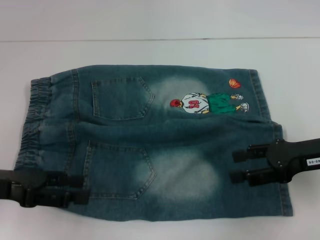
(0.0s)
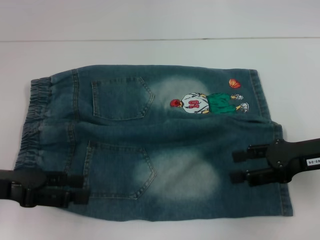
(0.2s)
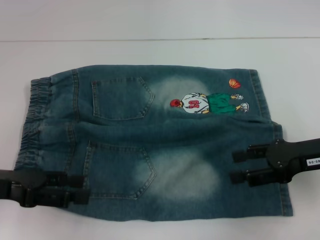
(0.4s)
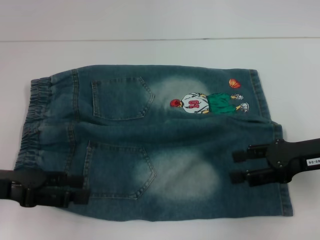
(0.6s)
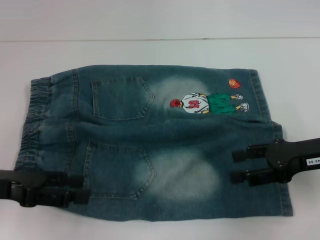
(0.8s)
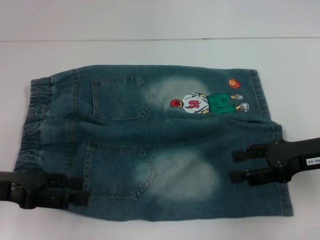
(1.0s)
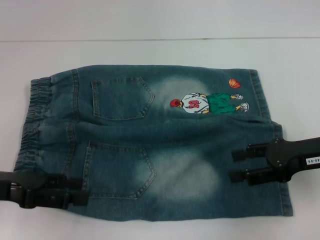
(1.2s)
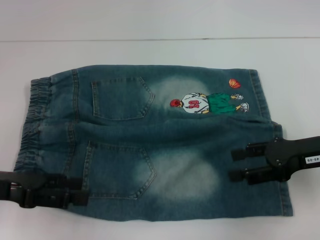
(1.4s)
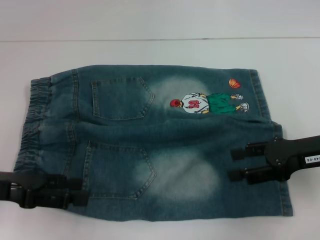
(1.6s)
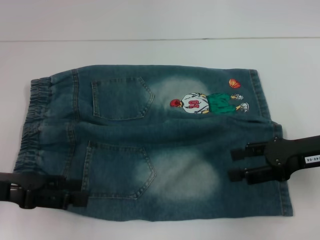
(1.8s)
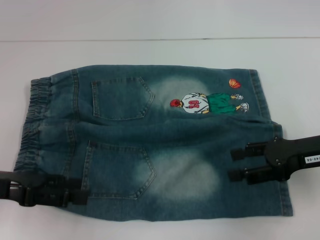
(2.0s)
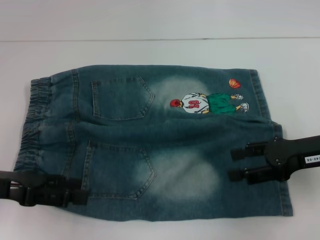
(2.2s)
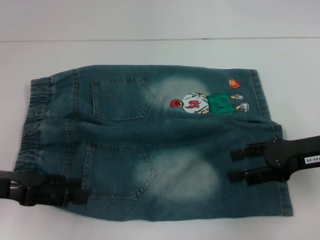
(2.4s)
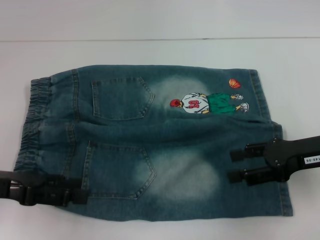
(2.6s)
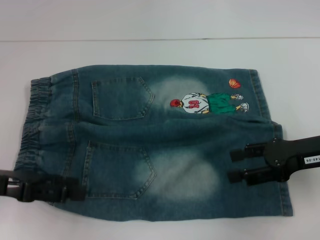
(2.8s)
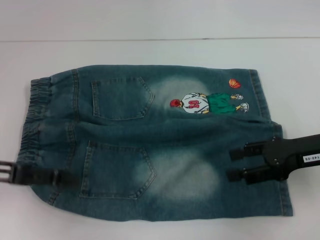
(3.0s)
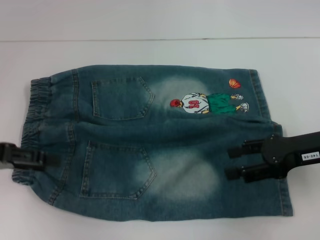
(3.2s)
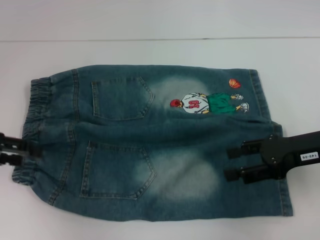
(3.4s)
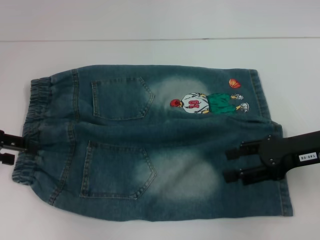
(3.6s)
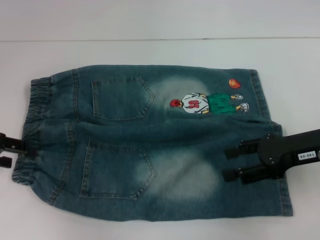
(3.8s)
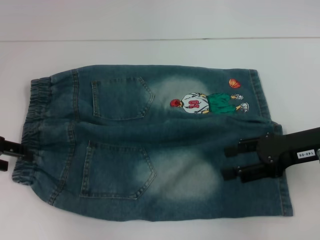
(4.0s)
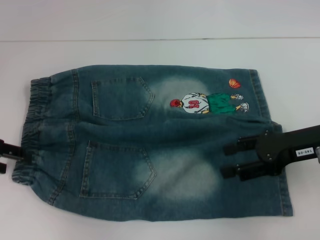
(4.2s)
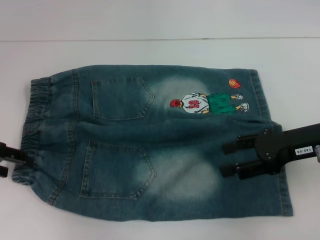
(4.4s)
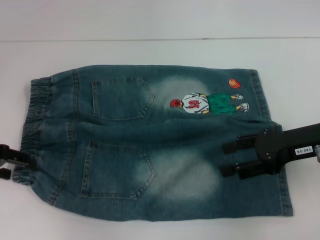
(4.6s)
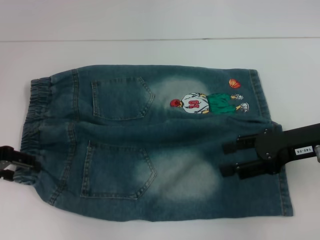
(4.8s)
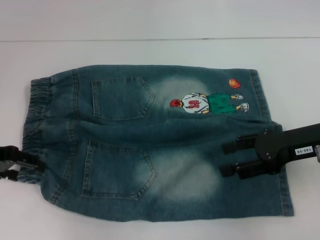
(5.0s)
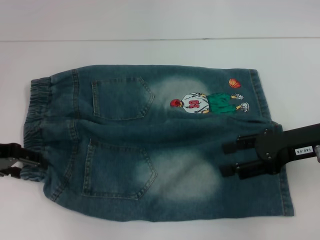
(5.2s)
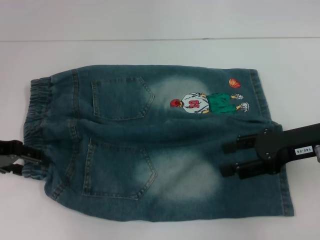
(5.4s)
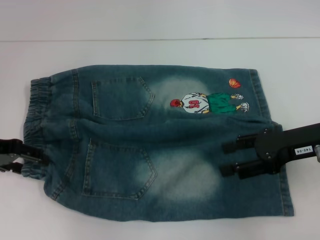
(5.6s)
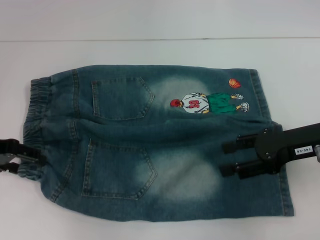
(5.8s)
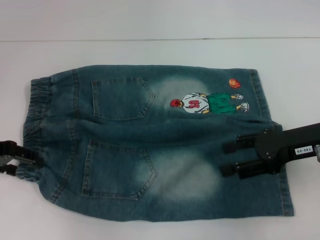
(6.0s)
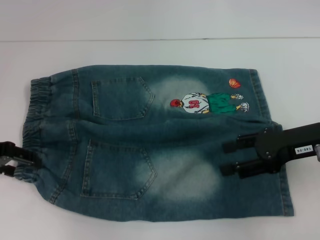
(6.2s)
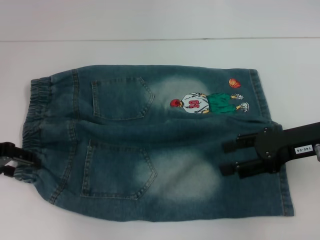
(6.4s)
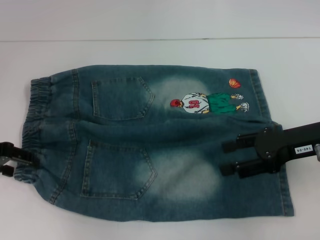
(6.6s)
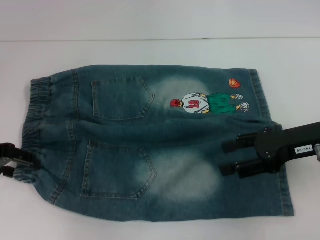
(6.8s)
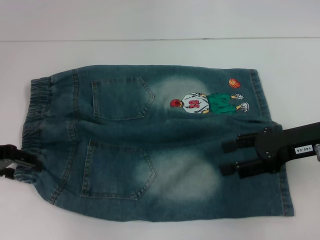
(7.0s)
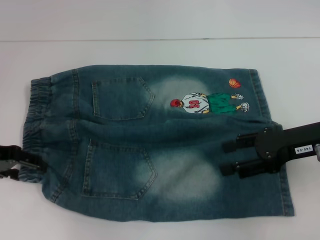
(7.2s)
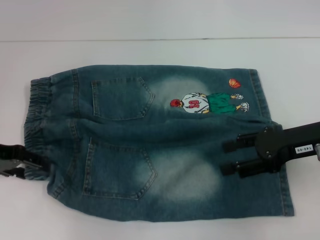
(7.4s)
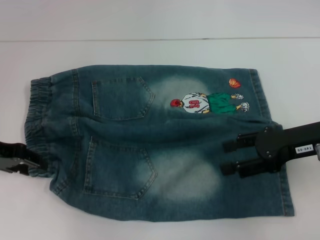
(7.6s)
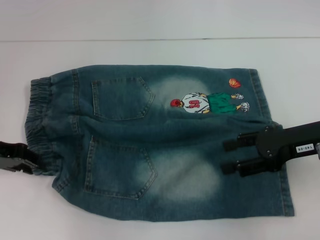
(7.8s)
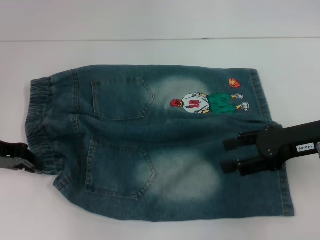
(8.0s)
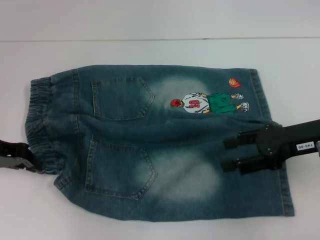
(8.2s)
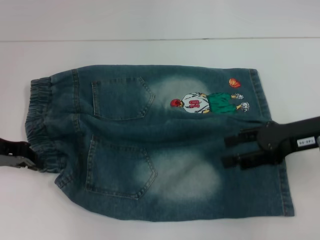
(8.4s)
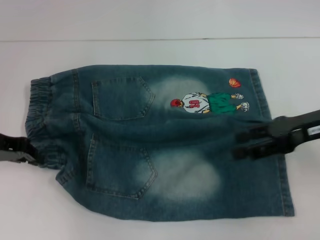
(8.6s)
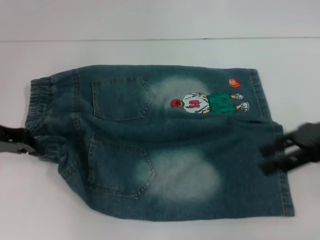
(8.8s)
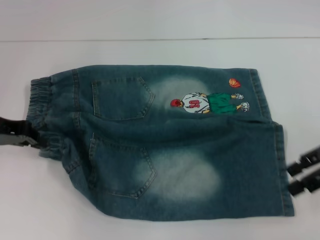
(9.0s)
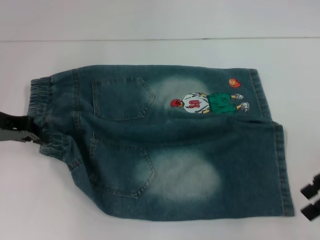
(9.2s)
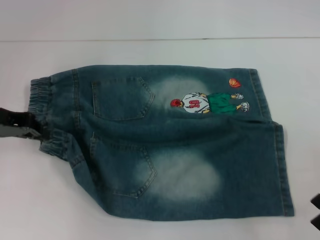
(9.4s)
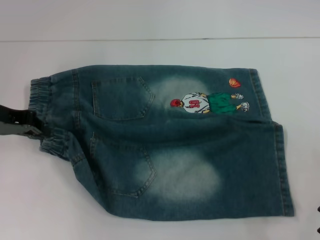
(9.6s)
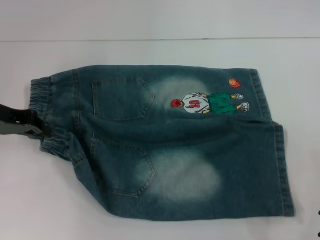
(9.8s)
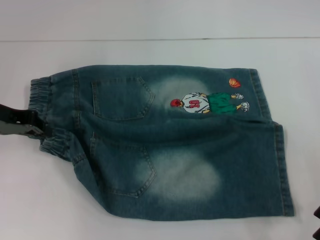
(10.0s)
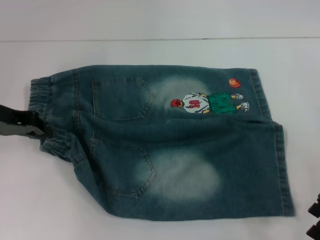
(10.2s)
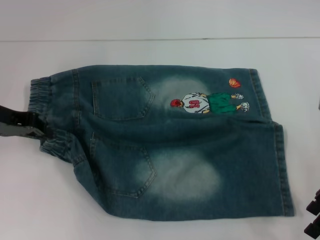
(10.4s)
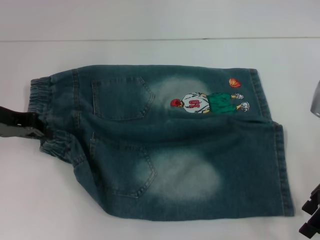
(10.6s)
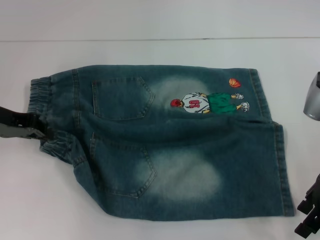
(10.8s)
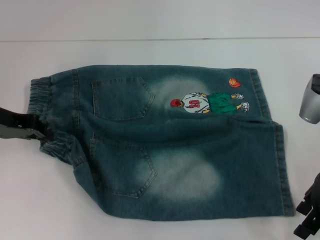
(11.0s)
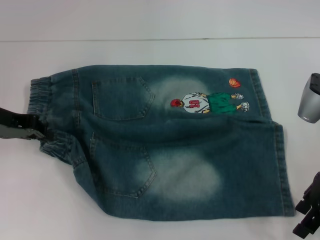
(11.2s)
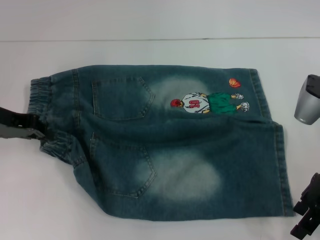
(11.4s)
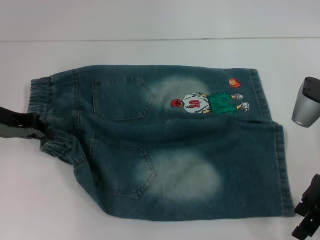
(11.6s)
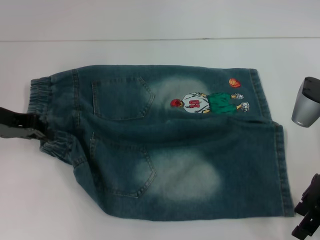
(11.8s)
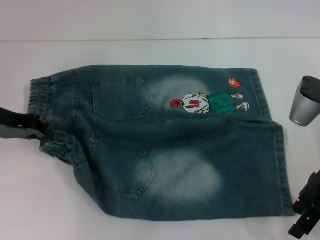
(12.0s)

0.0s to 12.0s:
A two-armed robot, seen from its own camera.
Step, 0.0s to 5.8s: Hold the lower left waistband with your left hand.
0.0s to 1.6s: Neither gripper changes place.
1.6s to 3.0s: The grippers make only small movements.
3.0s to 4.4s: The left gripper is displaced forward by some 5 cm.
4.4s to 6.0s: The grippers move only a little.
6.0s to 7.6s: Both grippers stay put.
7.6s to 9.0s: The left gripper closes up. Meanwhile the right gripper travels to the right by some 5 cm.
10.4s to 12.0s: The grippers make only small movements.

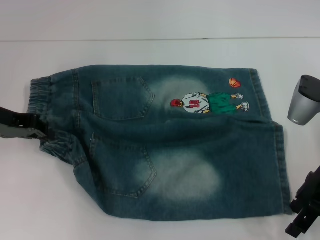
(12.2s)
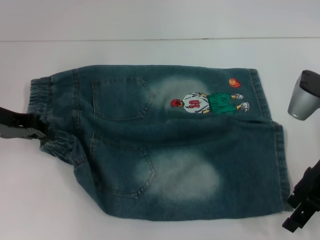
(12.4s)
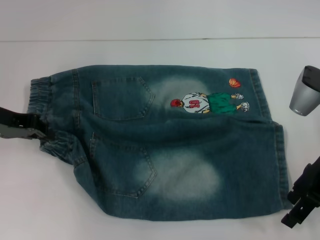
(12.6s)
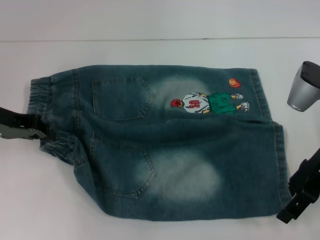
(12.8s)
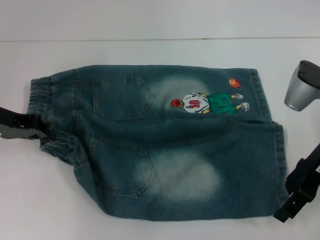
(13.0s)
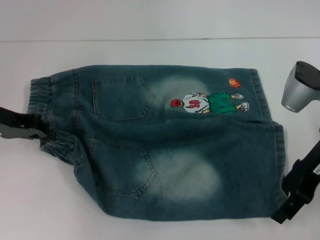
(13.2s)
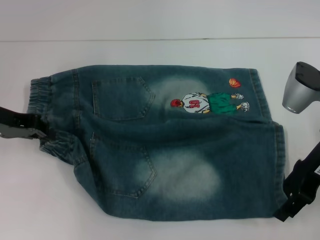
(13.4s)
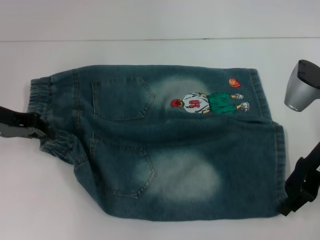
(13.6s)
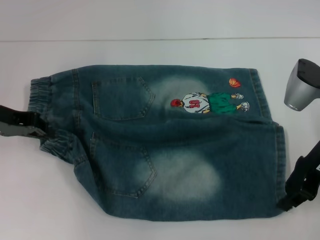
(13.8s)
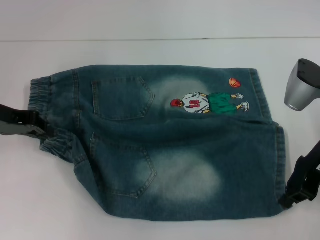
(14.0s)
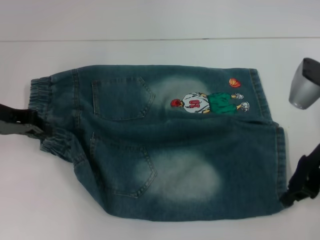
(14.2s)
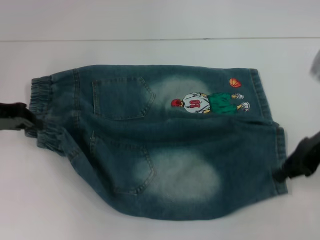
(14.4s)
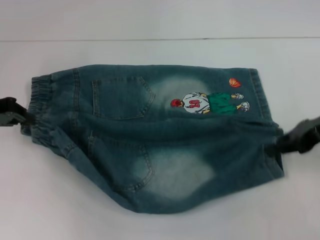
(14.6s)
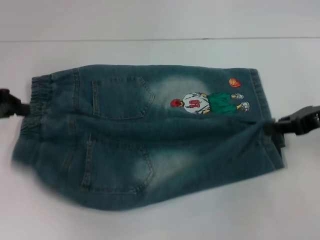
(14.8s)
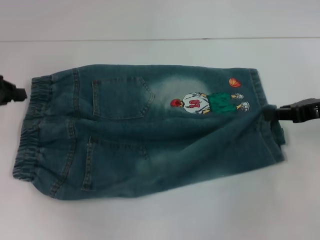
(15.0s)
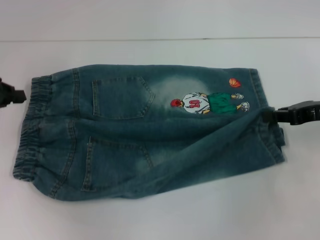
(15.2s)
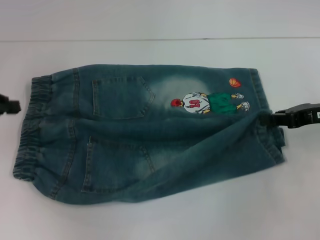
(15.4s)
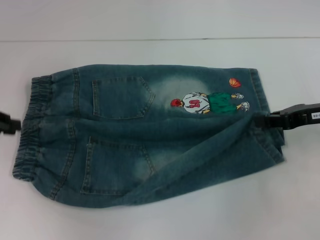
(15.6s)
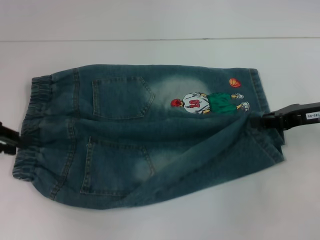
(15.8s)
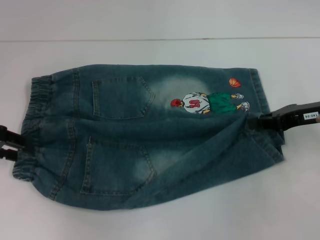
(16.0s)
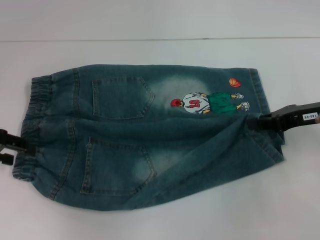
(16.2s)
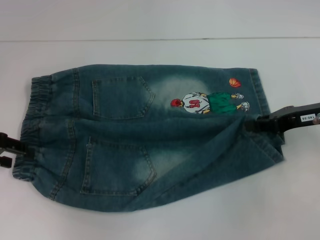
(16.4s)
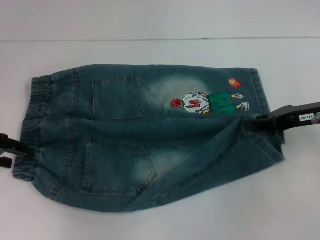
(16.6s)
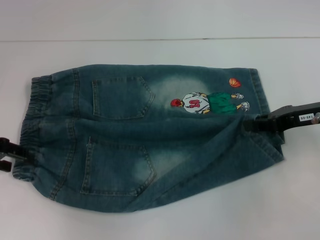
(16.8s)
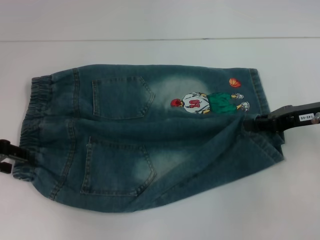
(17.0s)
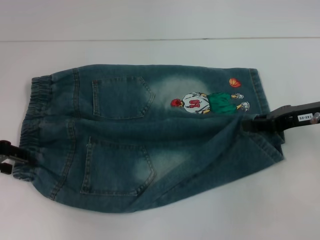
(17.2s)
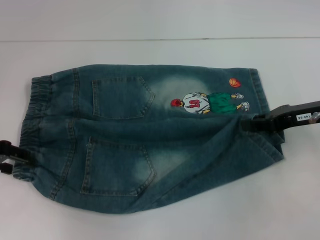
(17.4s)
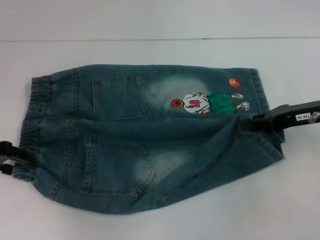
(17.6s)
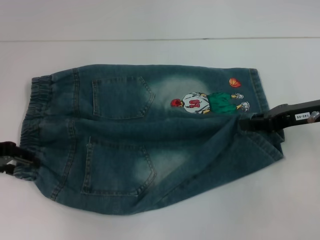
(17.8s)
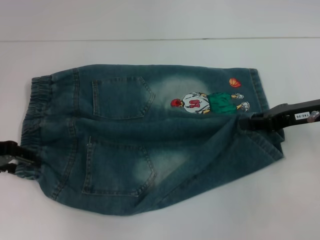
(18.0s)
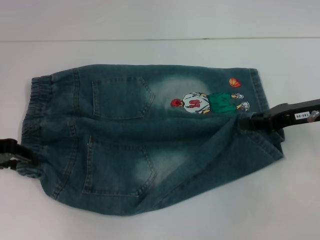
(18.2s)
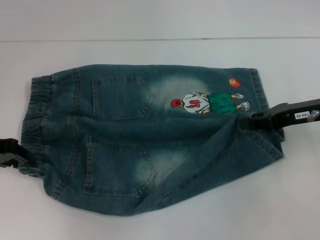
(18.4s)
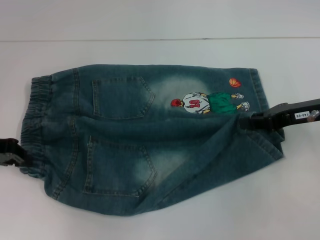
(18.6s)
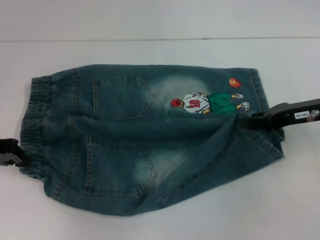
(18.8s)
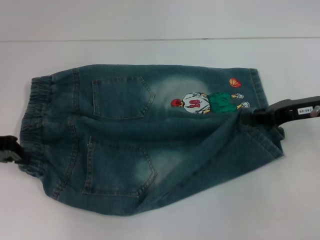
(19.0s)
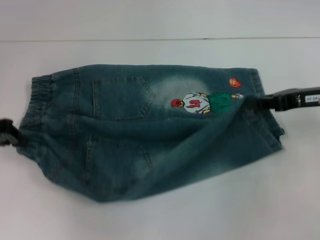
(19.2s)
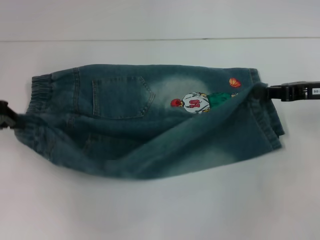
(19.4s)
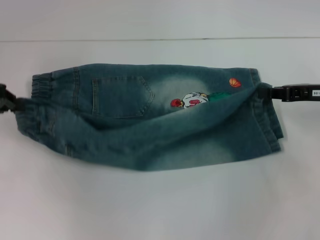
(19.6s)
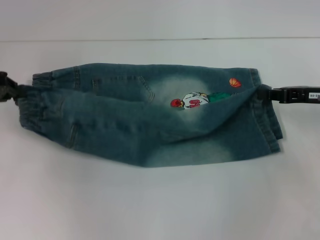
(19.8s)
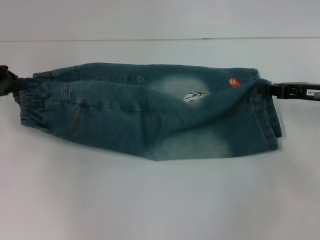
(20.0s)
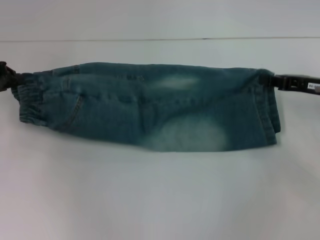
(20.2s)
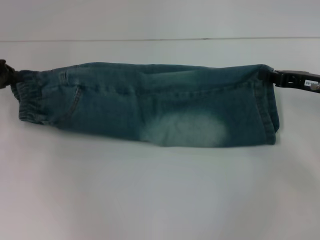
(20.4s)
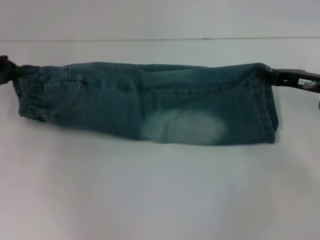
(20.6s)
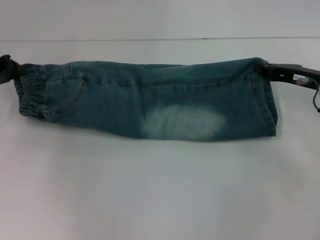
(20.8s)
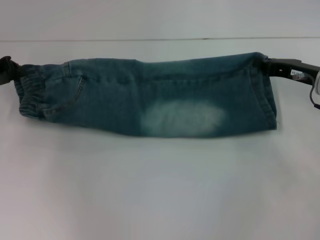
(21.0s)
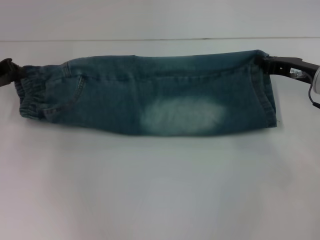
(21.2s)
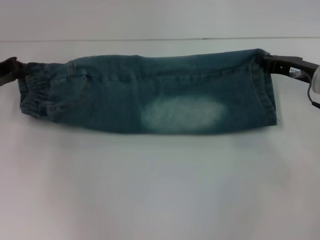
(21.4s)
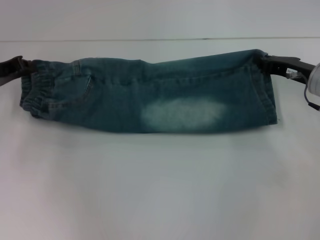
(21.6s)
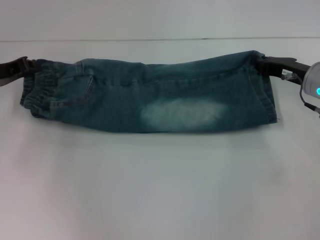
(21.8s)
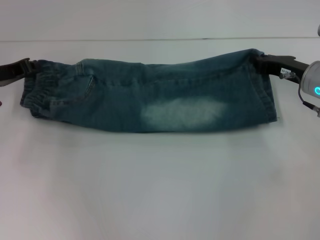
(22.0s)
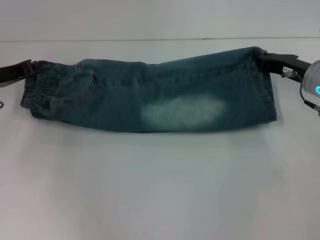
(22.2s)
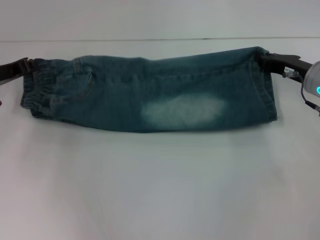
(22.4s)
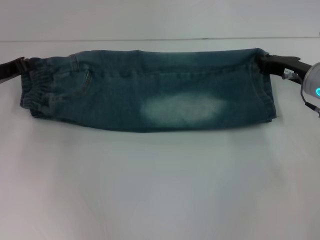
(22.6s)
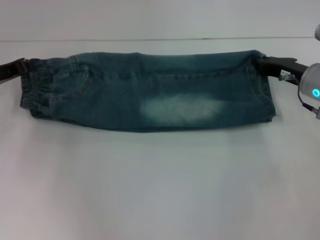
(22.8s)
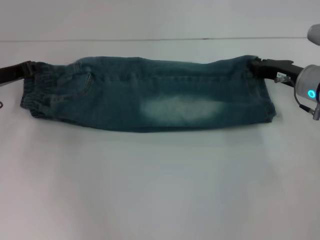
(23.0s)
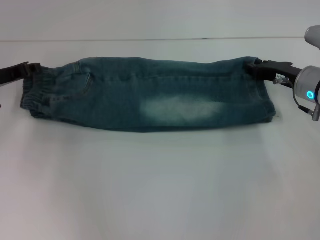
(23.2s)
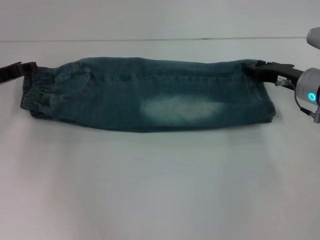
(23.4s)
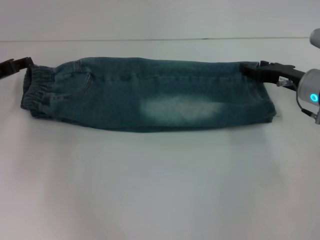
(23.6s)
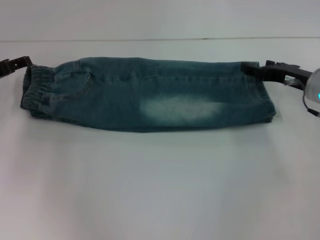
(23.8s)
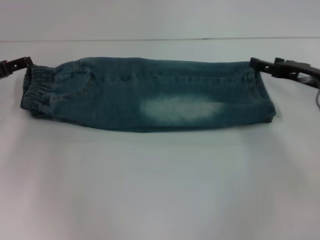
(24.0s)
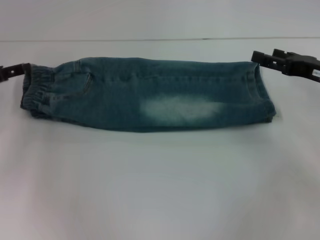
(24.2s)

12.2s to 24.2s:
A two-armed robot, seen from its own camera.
Step, 14.2s to 23.2s: Fold upward with your left hand.
12.2s to 13.8s: The right gripper closes up.
13.8s to 15.2s: The left gripper shifts roughly 5 cm to the left, while the right gripper travels to the right by about 10 cm, and closes.
15.2s to 16.6s: The left gripper opens its fingers.
16.6s to 18.2s: The grippers move only a little.
18.2s to 19.8s: The left gripper ends up some 5 cm from where it was, and closes its fingers.
21.2s to 22.6s: The grippers move only a little.
22.6s to 24.2s: The left gripper opens its fingers. Meanwhile the right gripper shifts by some 5 cm, and opens up.
